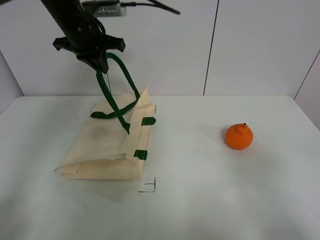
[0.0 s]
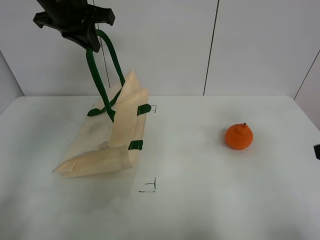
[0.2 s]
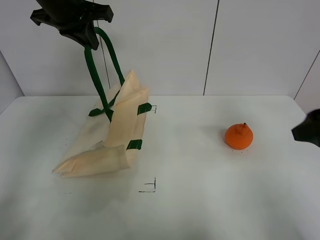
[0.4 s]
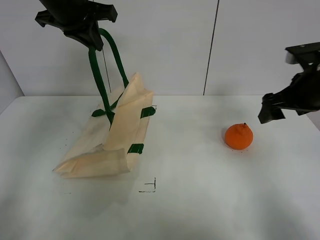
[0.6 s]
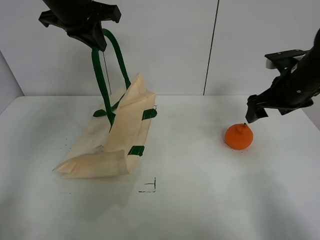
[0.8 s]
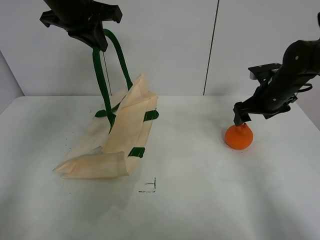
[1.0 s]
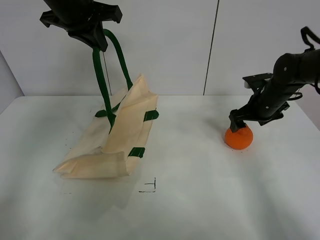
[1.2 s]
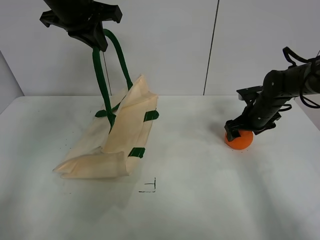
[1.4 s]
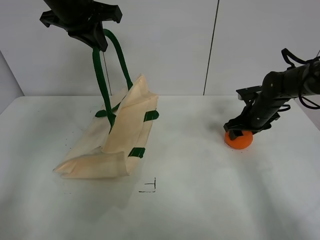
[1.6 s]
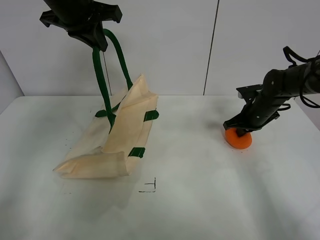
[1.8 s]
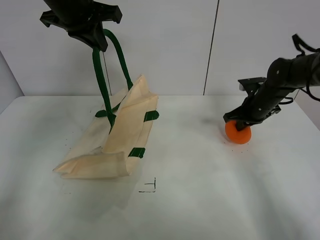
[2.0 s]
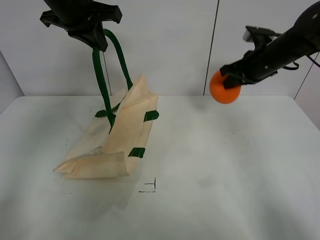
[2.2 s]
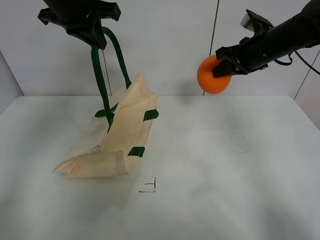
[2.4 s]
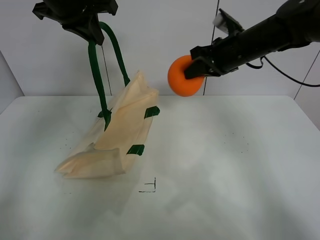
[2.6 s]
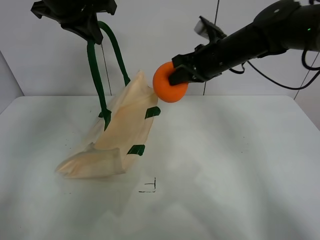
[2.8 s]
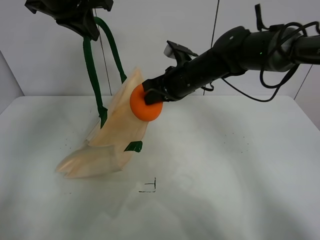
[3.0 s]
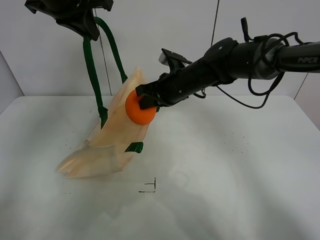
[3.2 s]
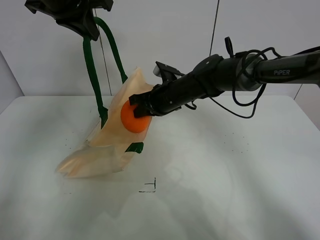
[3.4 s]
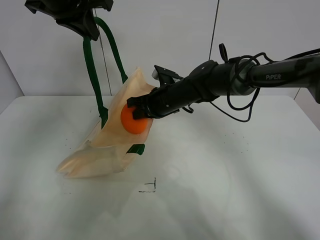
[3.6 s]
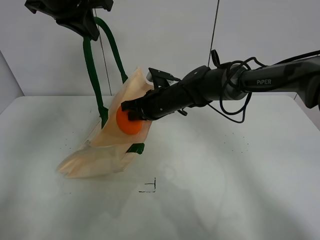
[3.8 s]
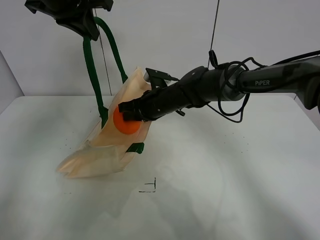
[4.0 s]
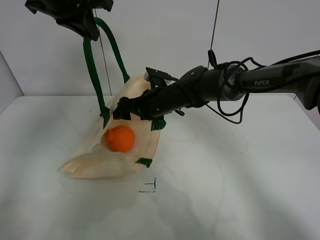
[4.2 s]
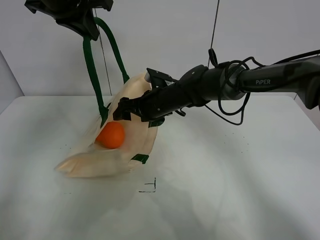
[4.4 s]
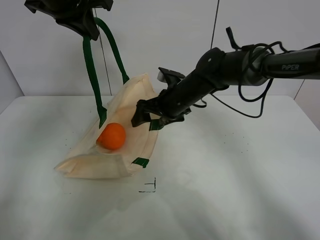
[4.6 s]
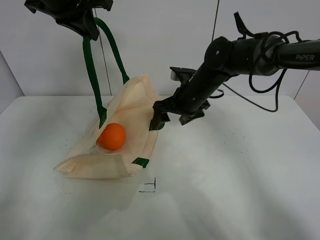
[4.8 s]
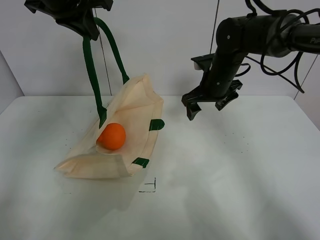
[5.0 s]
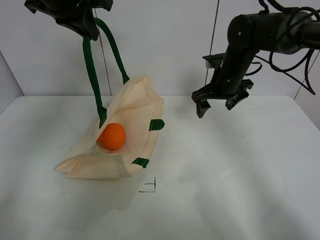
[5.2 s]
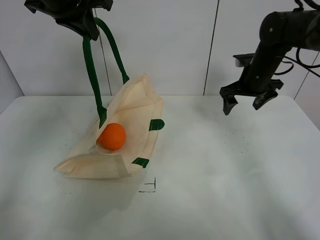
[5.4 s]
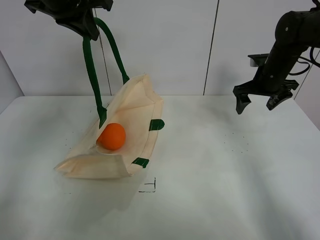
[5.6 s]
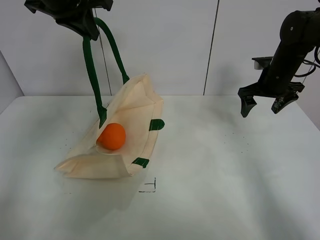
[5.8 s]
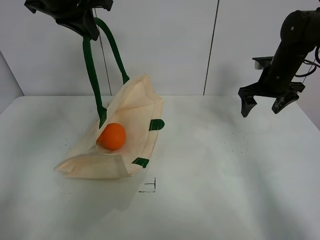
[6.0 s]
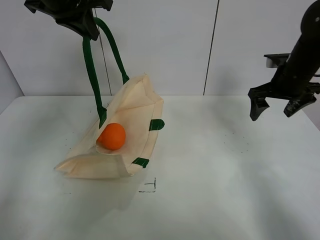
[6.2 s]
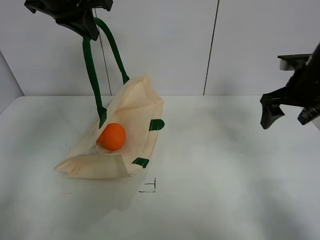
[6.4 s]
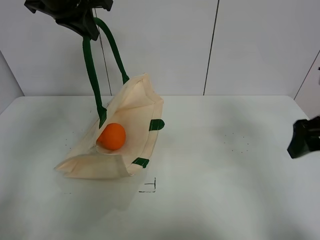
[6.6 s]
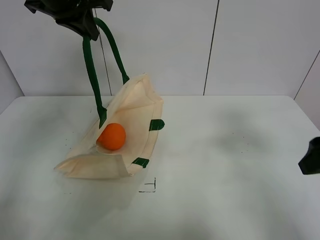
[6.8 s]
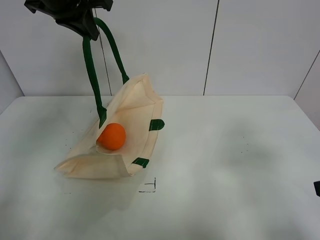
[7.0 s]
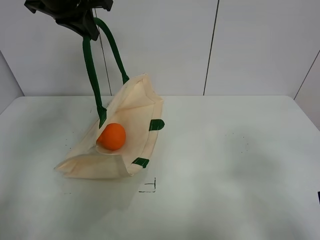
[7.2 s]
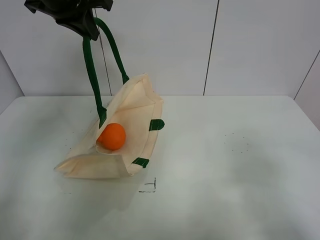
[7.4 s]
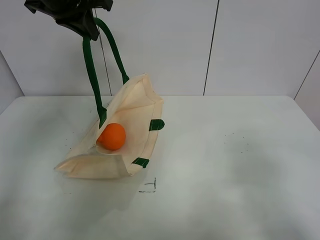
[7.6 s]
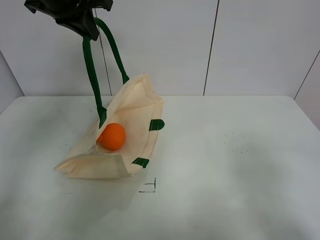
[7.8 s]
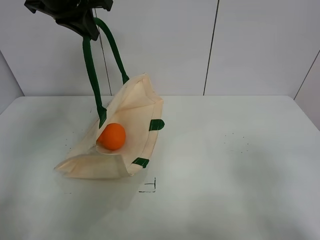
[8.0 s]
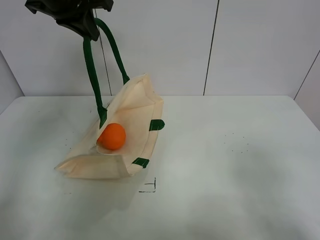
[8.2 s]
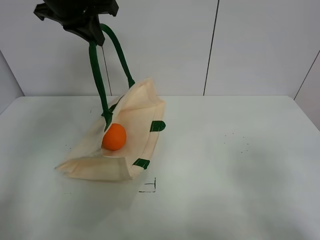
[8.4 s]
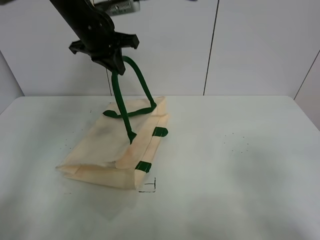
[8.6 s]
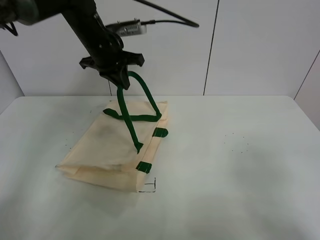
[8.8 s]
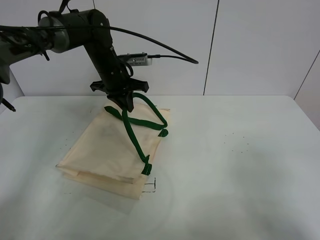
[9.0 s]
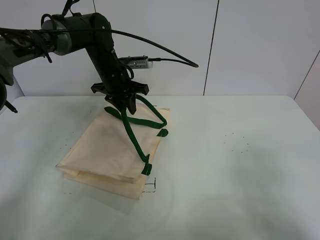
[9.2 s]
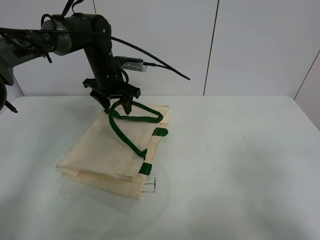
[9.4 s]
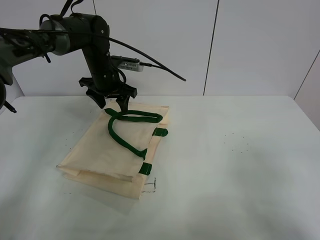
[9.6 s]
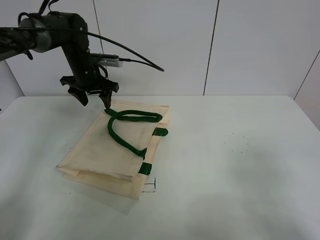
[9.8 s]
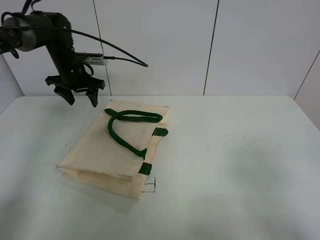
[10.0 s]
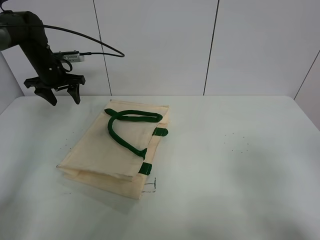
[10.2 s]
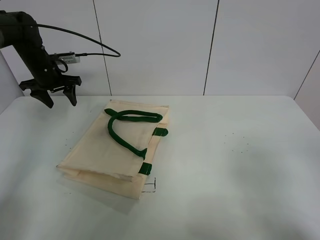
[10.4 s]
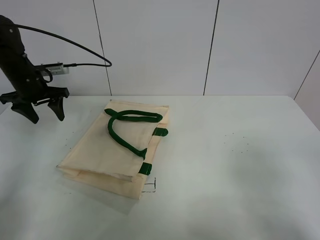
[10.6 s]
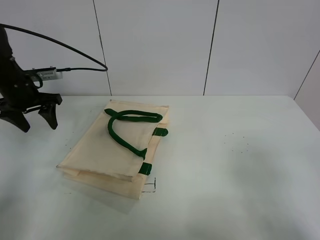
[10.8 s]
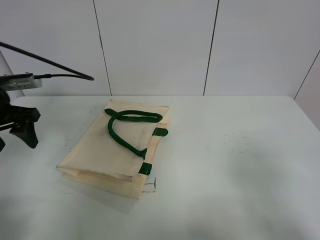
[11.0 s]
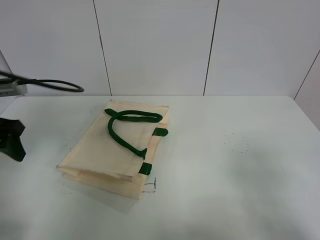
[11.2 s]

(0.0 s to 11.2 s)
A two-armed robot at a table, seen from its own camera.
Task of the whole recording: open the white linen bag and put the orange in the bag.
Step, 0.4 s - 1.6 s: Grasp the orange with right gripper.
Step, 1.8 s - 4.4 s: Place the orange in the handbag with right gripper.
Step, 4.6 s - 9.4 s: Put down the handbag with left gripper.
0.0 s - 1.6 s: The right gripper shifts about 40 cm forward and downward. The left gripper ends up approximately 5 cm from where it was.
1.6 s - 3.2 s: The right gripper goes about 25 cm to the left and upward, and closes its fingers.
3.2 s - 4.8 s: The right gripper opens up.
4.8 s - 6.4 s: The right gripper travels to the right by about 20 cm.
6.4 s - 8.0 s: The right gripper is displaced backward by roughly 30 cm.
8.0 s - 9.6 s: The left gripper heads downward and forward, covering approximately 20 cm, and opens.
9.6 s - 11.2 s: The left gripper travels backward and to the left by about 30 cm.

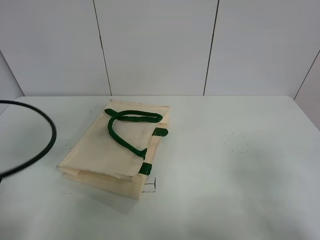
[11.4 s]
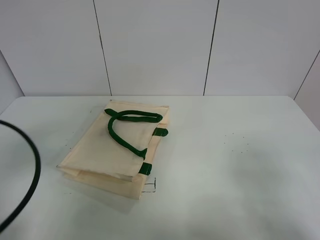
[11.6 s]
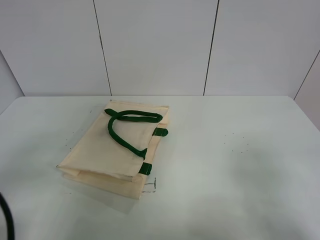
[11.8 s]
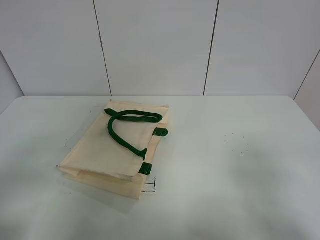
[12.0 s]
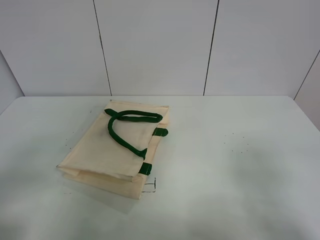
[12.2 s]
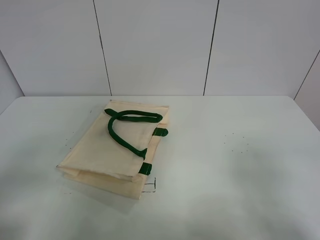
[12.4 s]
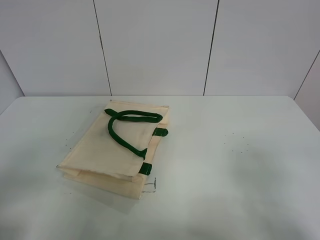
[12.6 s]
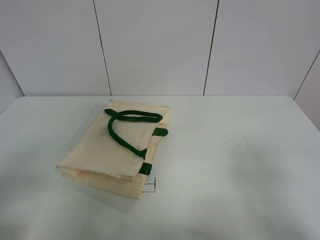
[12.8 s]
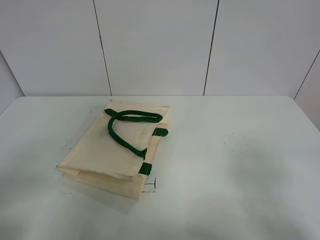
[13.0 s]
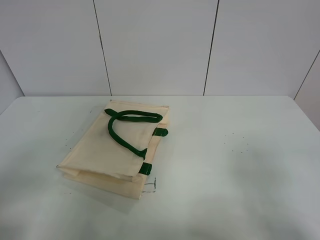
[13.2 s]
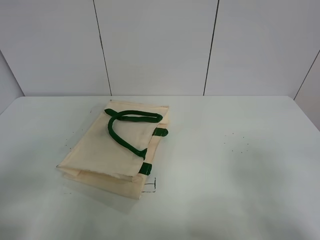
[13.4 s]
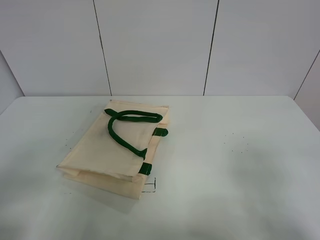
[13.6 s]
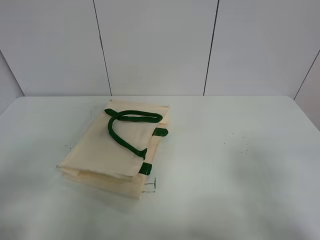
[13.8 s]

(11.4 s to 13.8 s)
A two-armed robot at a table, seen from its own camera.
Task of the whole recording: open the white linen bag and put the orange in the bag.
11.4 s - 12.6 s: The left gripper shifts about 15 cm backward.
12.6 s - 13.8 s: Neither gripper changes place.
